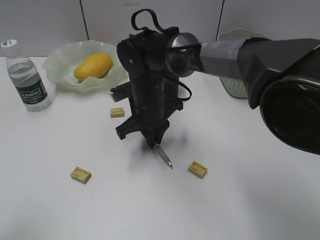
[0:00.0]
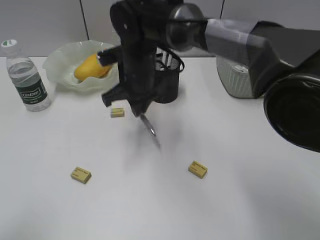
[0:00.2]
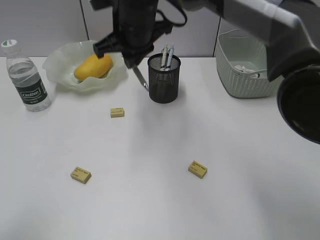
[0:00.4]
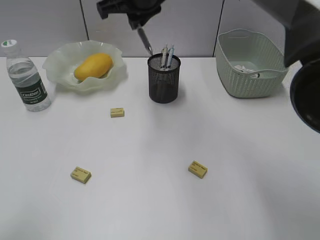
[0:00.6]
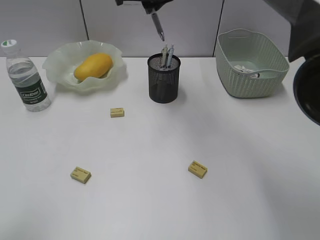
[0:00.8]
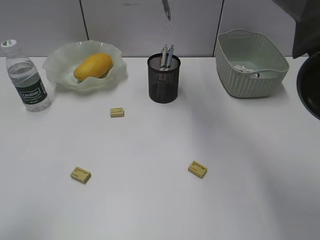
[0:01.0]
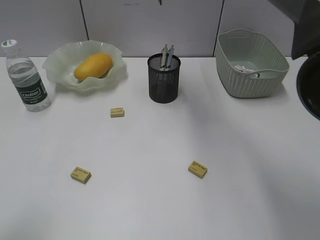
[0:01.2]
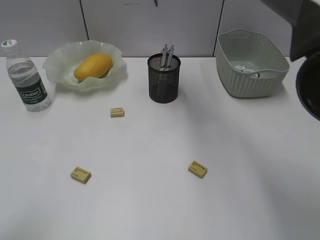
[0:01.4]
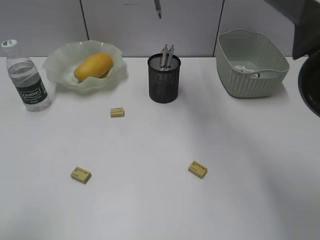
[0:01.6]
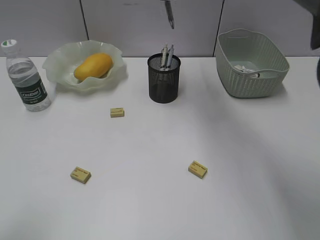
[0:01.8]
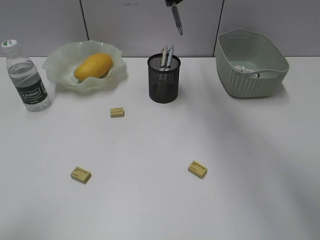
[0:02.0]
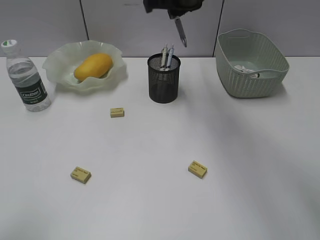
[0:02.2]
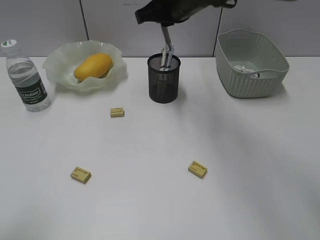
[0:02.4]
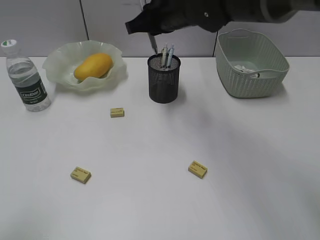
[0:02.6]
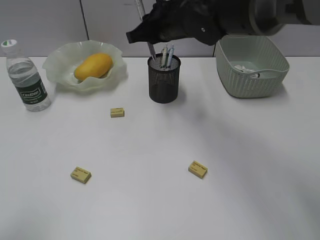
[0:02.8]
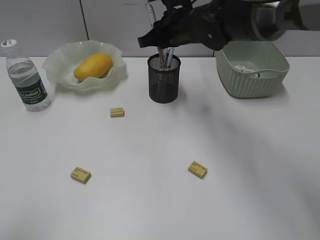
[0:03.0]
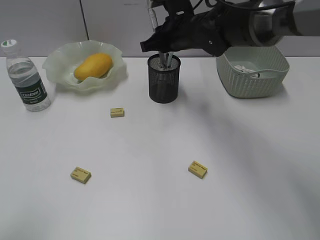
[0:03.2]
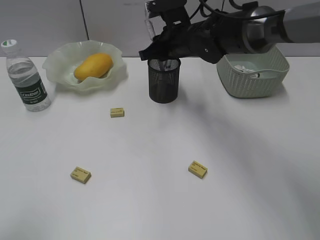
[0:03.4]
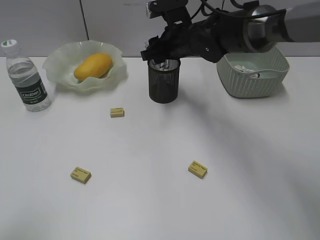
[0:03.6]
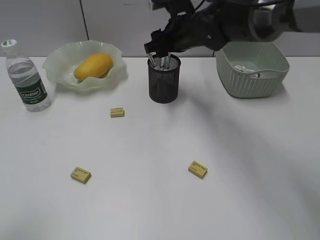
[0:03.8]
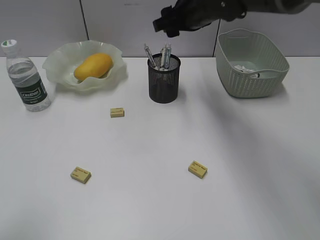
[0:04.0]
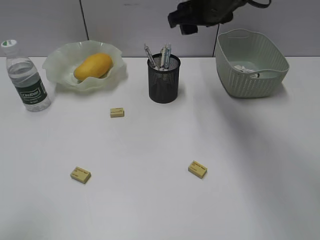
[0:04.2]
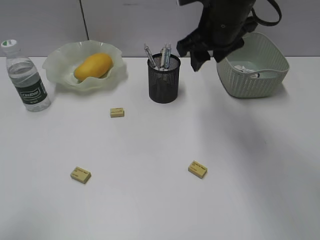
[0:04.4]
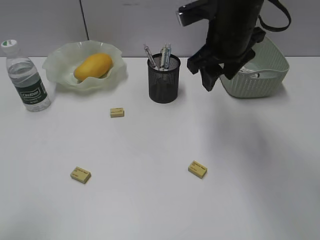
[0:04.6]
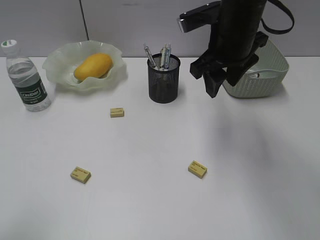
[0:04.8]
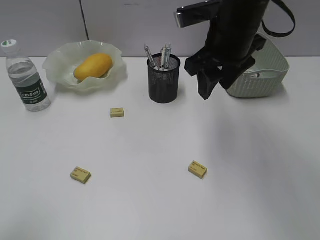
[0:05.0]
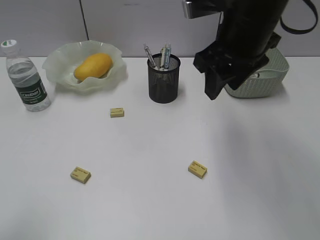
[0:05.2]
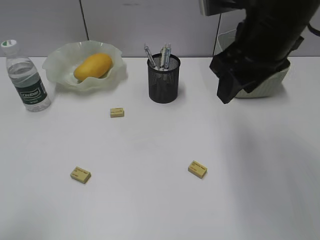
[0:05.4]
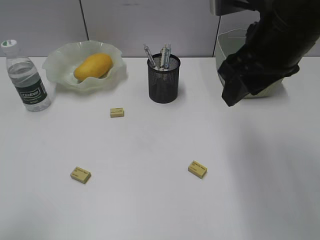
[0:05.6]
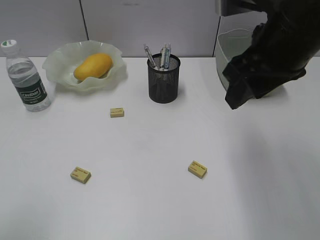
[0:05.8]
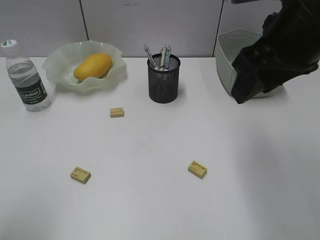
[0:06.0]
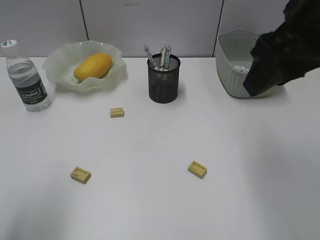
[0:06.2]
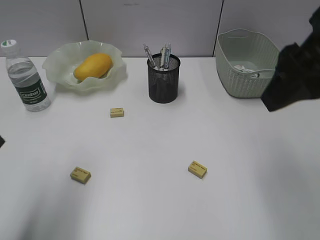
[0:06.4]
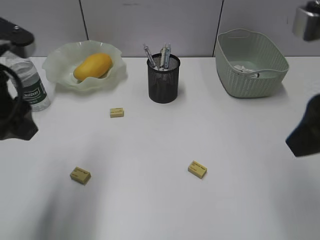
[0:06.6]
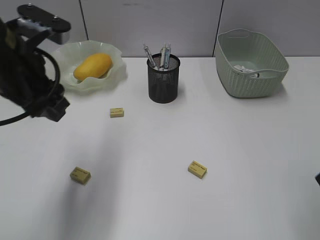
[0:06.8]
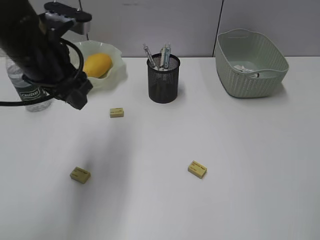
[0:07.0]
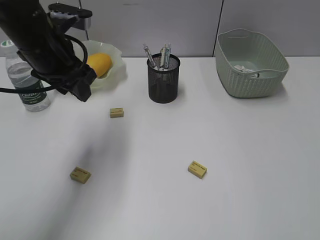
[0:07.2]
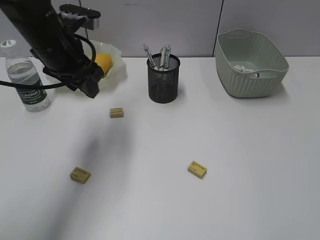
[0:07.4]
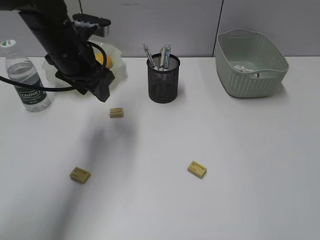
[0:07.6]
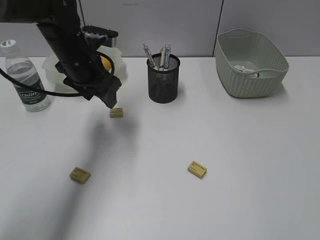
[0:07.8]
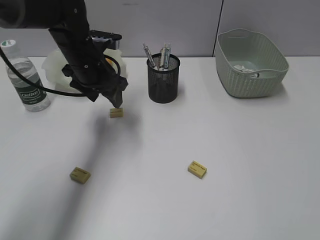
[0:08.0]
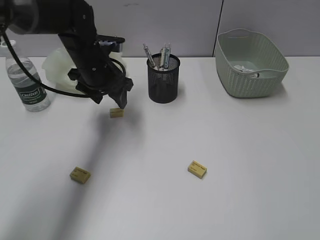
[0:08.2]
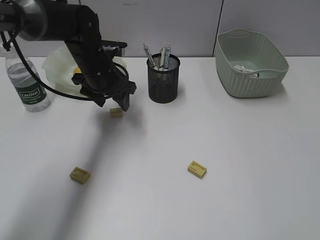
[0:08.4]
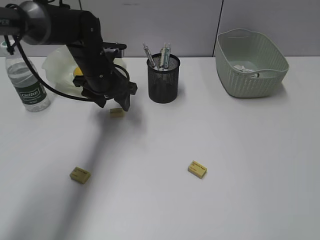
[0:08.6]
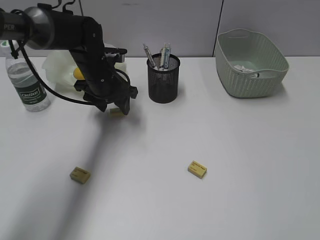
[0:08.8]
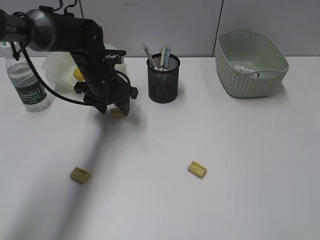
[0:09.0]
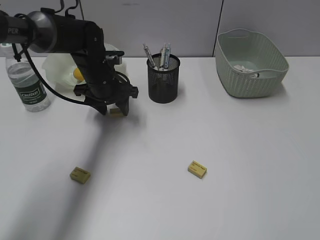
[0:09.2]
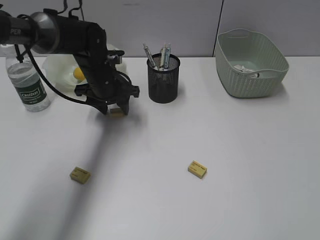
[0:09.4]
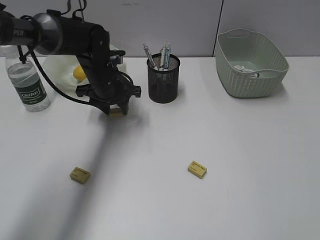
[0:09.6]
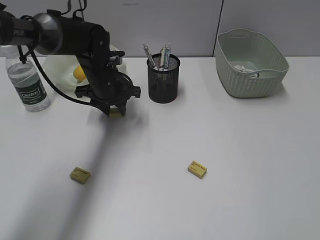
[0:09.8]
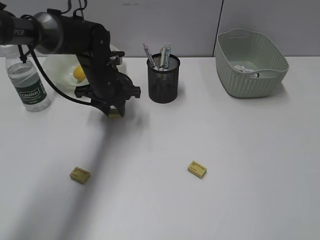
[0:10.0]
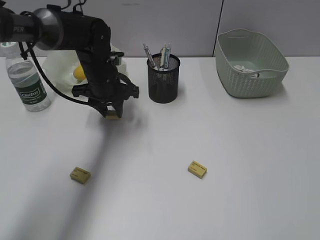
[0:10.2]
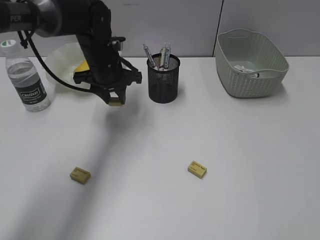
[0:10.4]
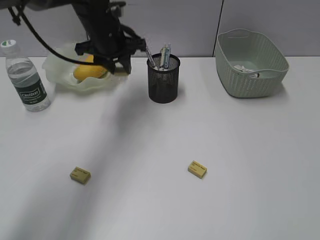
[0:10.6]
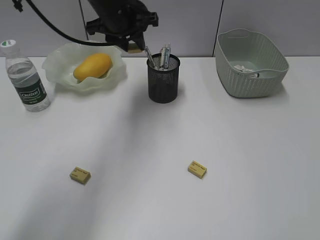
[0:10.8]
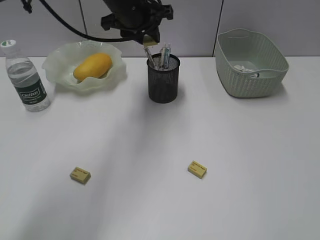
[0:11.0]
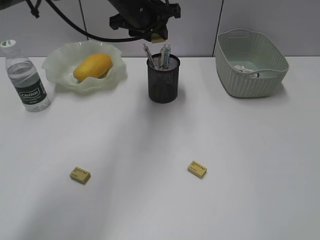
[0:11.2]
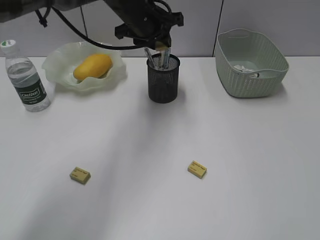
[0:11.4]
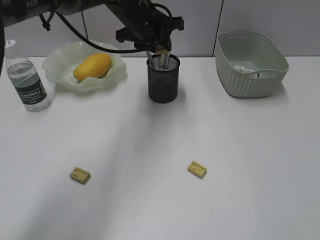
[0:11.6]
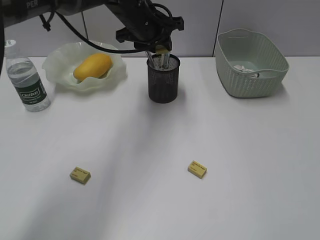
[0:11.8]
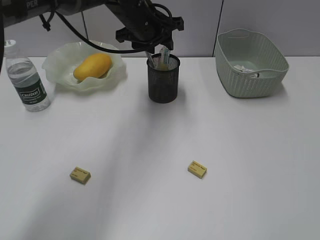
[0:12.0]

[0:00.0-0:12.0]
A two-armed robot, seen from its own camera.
Step, 0.0 to 3.8 s: Place the gray pen in pen holder with right gripper.
Step, 4.0 to 10.0 s: Grasp the eraser with left gripper.
0.0 to 1.6 s: The right gripper shifts some 25 cm upward and forward.
1.6 to 3.0 s: The right gripper heads downward, covering some 10 cm.
3.0 to 4.4 s: The right gripper is displaced upward and backward by some 10 cm, and opens up.
4.4 to 6.0 s: The right gripper travels backward, upward and to the right by roughly 15 cm.
6.0 to 7.6 s: The left gripper is displaced forward and to the right by some 35 cm. Meanwhile the right gripper goes roughly 25 cm backward and to the right.
7.6 to 9.0 s: The left gripper goes roughly 10 cm downward and forward.
9.0 to 10.4 s: The left gripper closes its fingers.
10.4 to 12.0 s: The left gripper heads upward and to the right, covering roughly 10 cm.

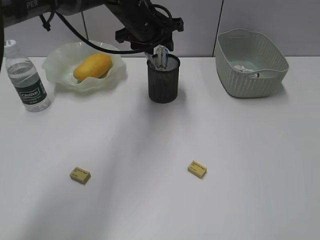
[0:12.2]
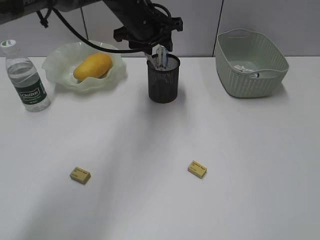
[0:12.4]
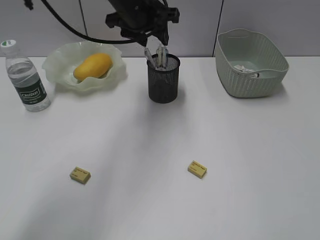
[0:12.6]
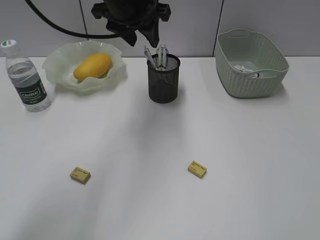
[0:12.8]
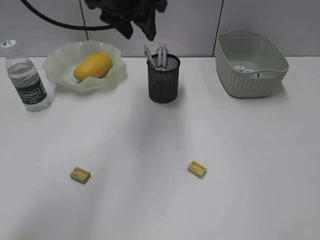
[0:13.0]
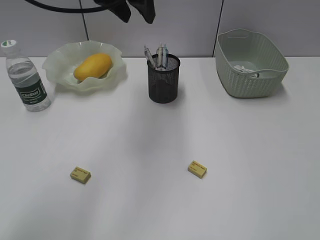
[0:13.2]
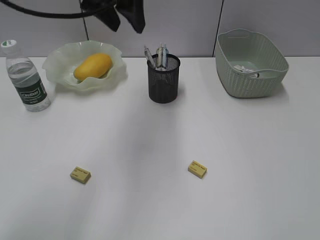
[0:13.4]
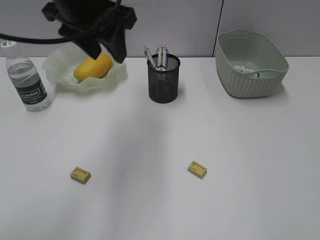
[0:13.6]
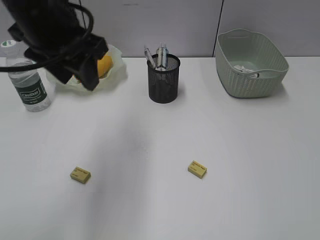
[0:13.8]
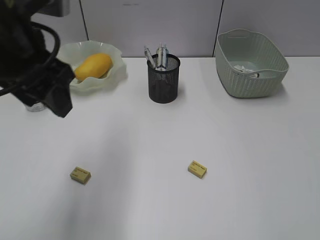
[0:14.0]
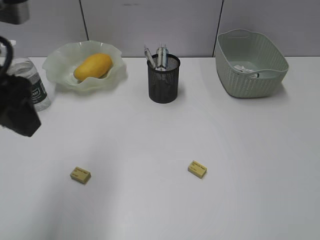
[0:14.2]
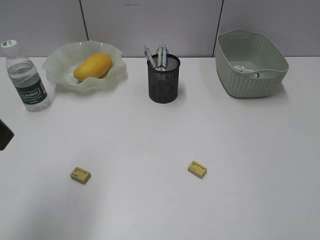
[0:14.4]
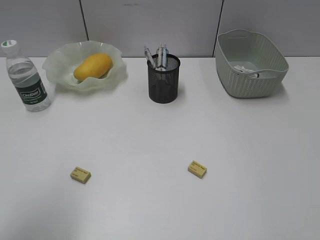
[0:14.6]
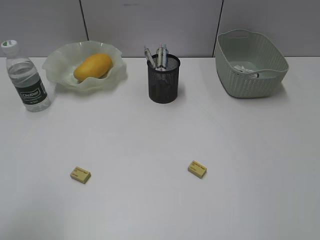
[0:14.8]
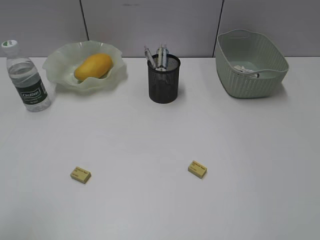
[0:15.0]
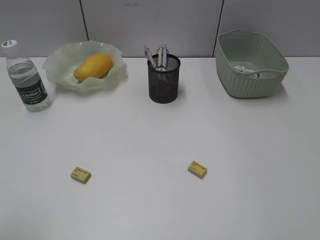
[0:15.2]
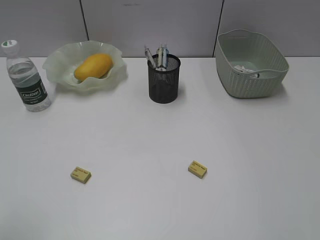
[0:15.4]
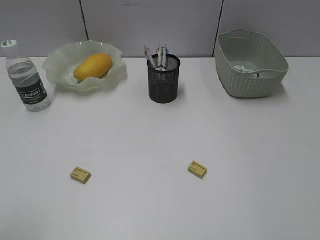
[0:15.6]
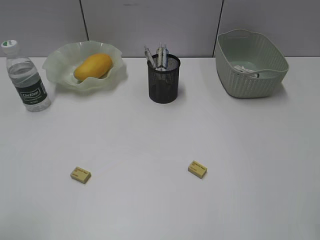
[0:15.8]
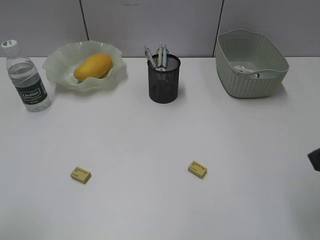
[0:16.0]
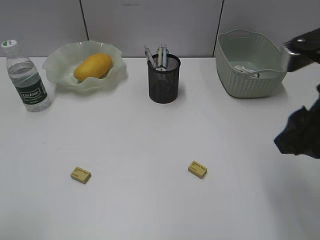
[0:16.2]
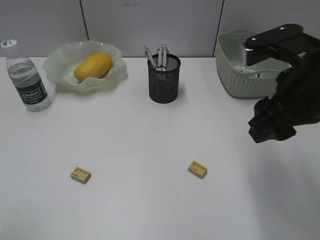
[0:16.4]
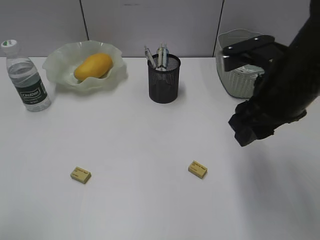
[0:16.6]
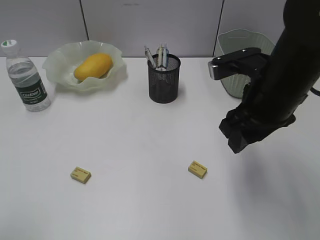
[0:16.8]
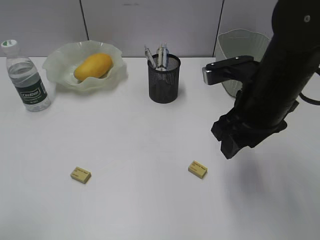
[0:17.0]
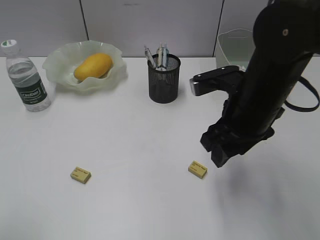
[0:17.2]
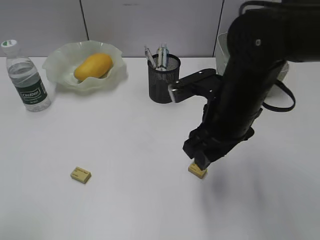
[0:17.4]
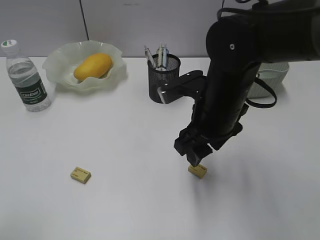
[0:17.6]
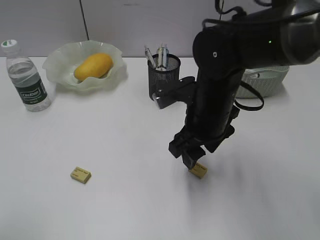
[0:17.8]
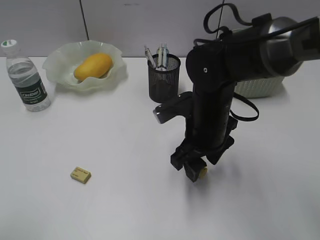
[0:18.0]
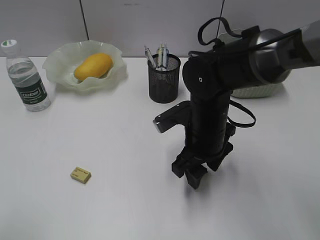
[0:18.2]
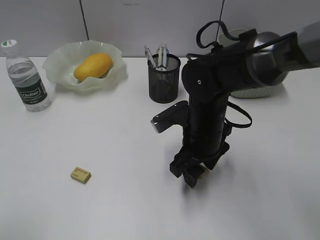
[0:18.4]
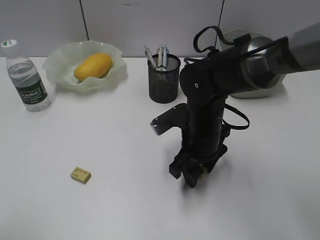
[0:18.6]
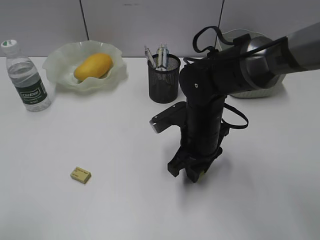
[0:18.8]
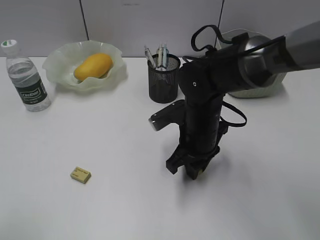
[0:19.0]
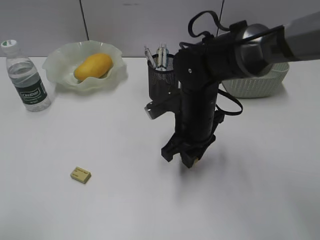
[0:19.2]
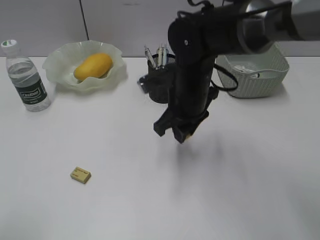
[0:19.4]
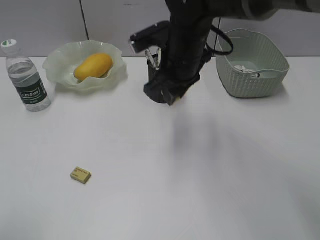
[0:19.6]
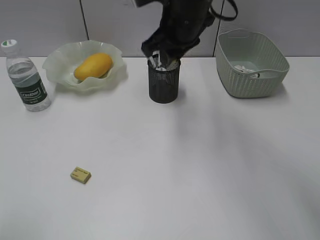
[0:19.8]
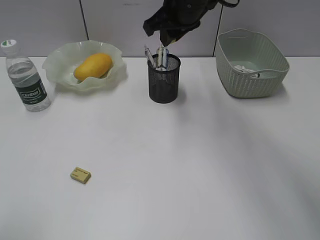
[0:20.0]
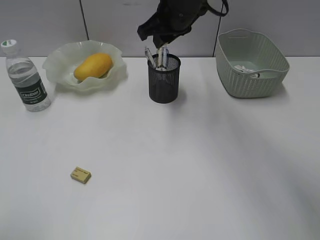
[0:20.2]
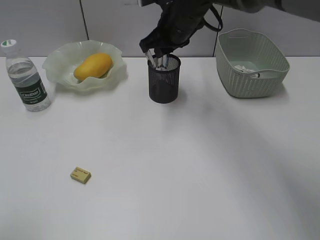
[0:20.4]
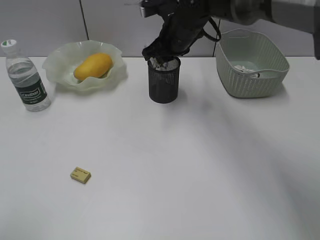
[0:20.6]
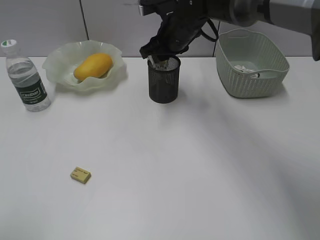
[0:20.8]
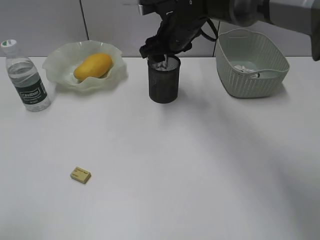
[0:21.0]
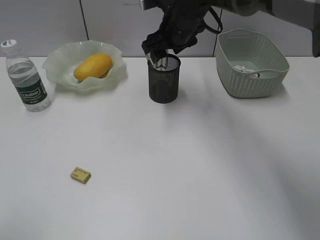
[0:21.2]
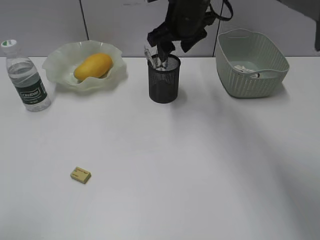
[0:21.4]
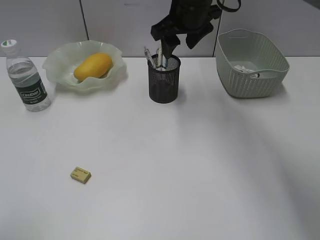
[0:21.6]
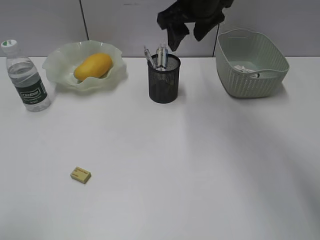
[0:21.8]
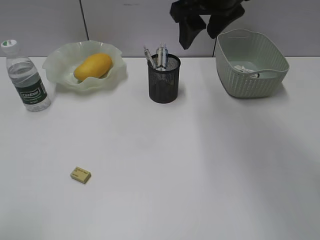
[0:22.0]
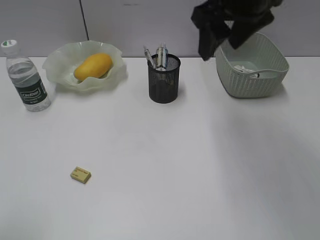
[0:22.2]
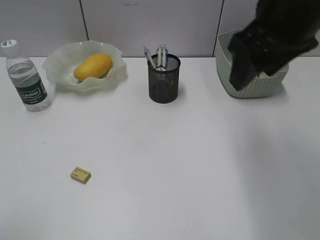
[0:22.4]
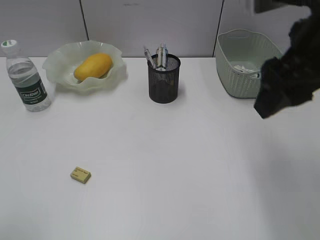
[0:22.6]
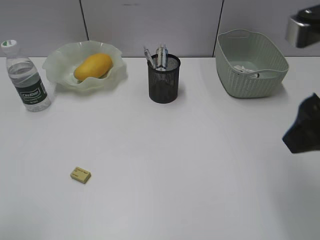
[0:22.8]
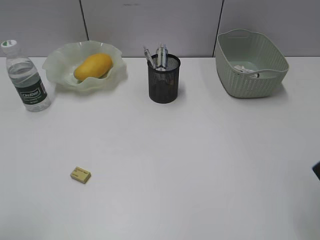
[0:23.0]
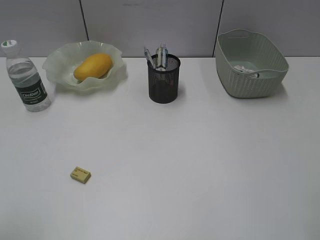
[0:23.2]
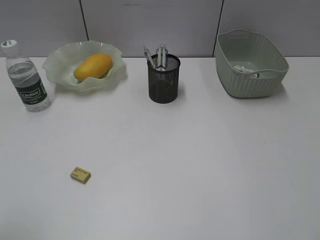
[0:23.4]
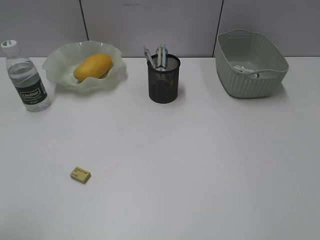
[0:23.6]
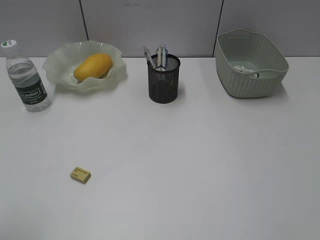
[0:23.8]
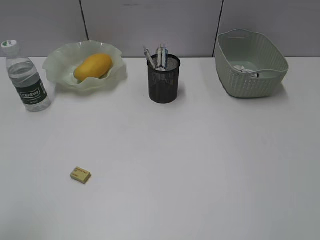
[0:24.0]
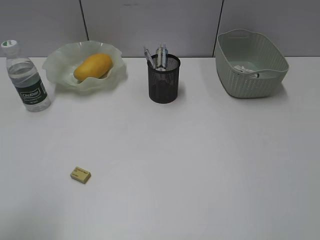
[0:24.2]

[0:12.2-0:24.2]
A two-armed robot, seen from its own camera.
Step, 12.4 to 18.8 s: Grasp the eraser with right gripper.
Step, 19.0 to 21.0 s: Place the eraser in pen holder with right gripper.
12.2 to 13.8 s: The left gripper moves backward, to the left and upward, approximately 20 cm.
13.8 to 15.2 s: The left gripper is displaced backward and to the left by approximately 30 cm.
15.2 to 16.6 s: The right gripper heads forward and to the left, covering roughly 25 cm.
16.6 to 18.2 s: The right gripper is displaced downward and to the left by approximately 15 cm.
18.2 to 19.8 s: The right gripper is displaced upward and forward by some 15 cm, and closes its fingers.
19.8 to 21.2 s: The right gripper heads forward, covering some 10 cm, and opens.
21.2 to 22.6 s: The right gripper heads backward, to the right and upward, covering approximately 30 cm.
22.6 to 24.2 s: The right gripper moves backward and to the right, about 25 cm.
